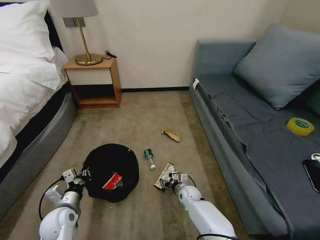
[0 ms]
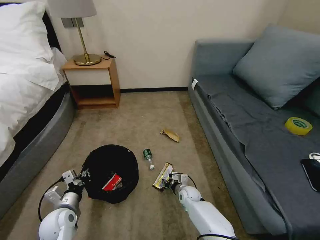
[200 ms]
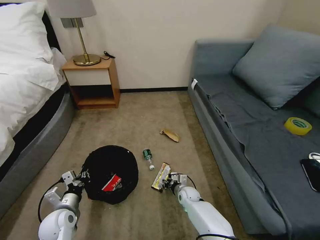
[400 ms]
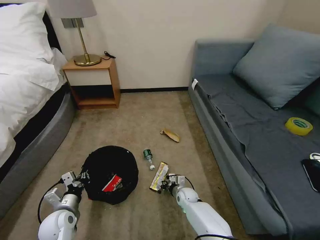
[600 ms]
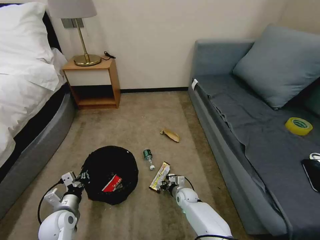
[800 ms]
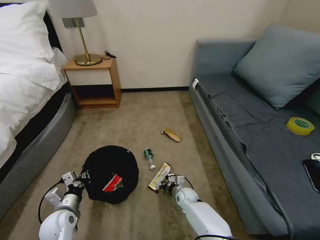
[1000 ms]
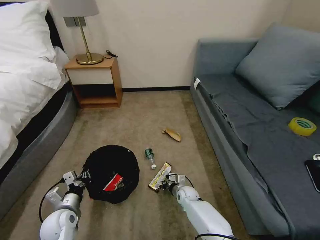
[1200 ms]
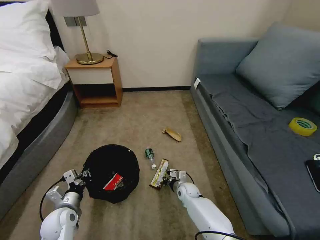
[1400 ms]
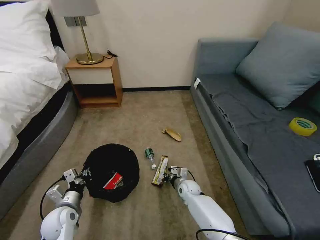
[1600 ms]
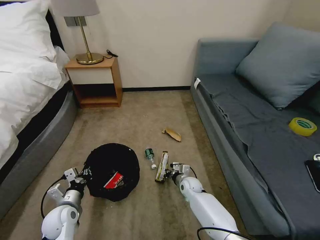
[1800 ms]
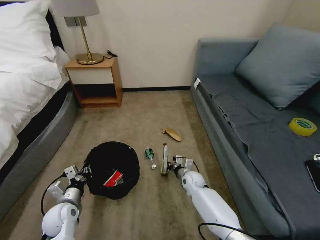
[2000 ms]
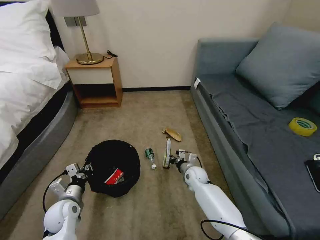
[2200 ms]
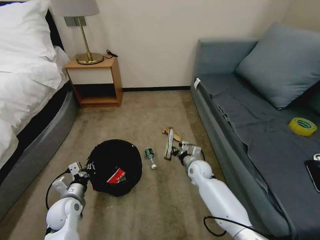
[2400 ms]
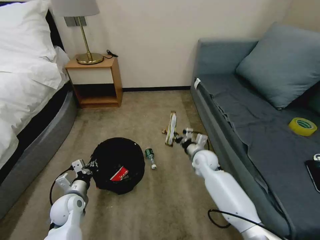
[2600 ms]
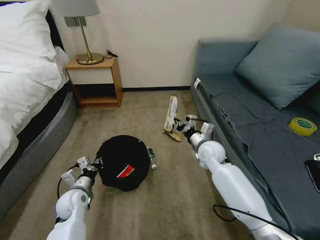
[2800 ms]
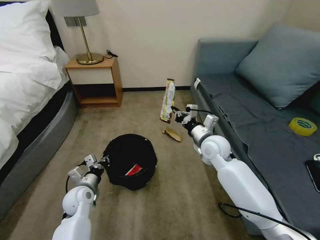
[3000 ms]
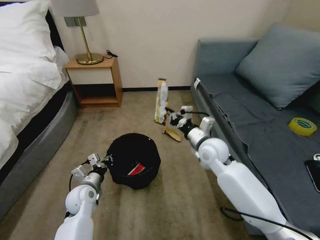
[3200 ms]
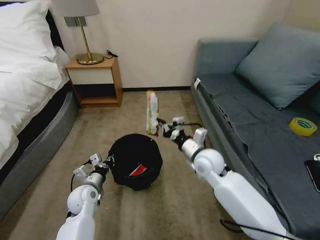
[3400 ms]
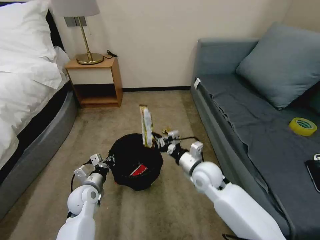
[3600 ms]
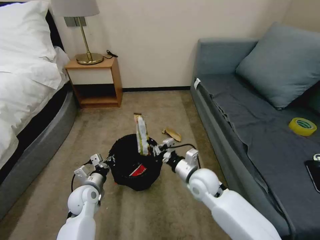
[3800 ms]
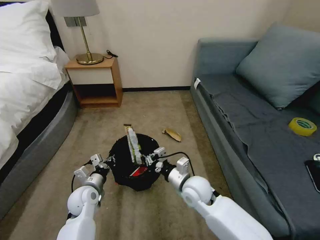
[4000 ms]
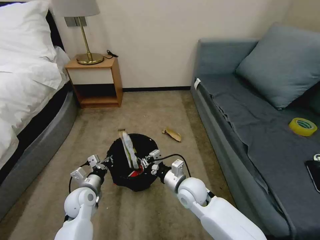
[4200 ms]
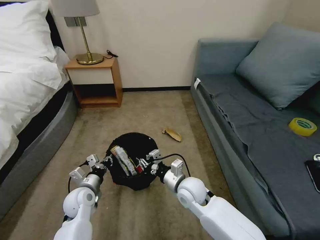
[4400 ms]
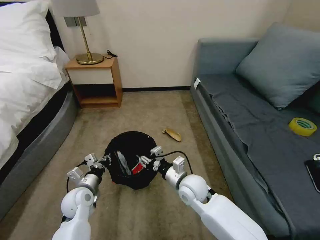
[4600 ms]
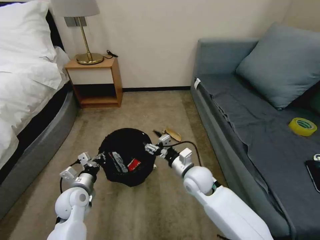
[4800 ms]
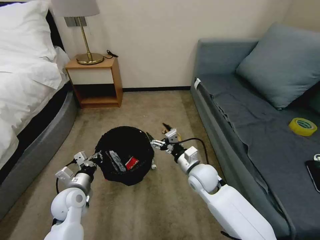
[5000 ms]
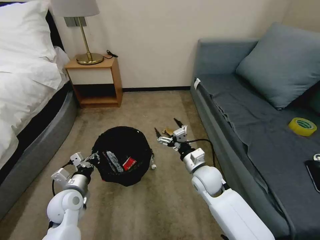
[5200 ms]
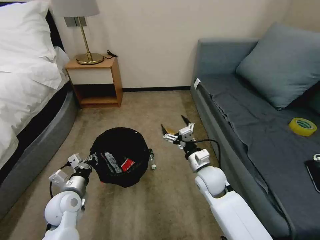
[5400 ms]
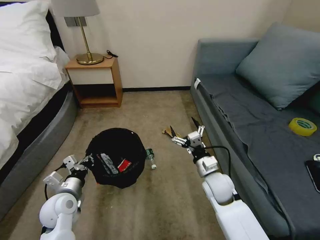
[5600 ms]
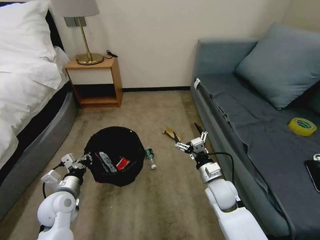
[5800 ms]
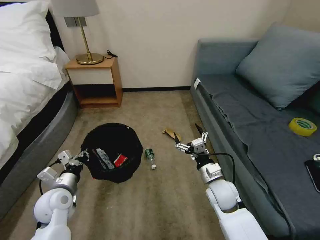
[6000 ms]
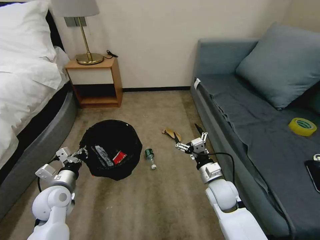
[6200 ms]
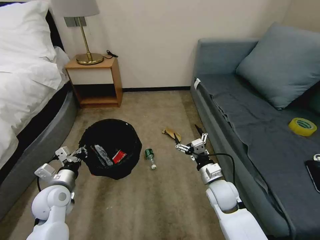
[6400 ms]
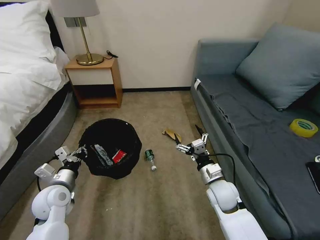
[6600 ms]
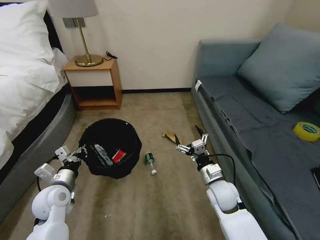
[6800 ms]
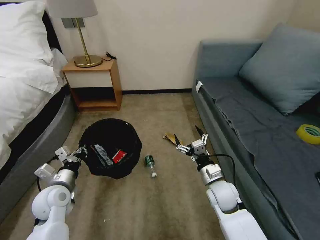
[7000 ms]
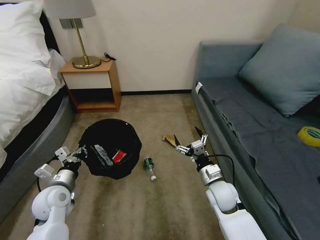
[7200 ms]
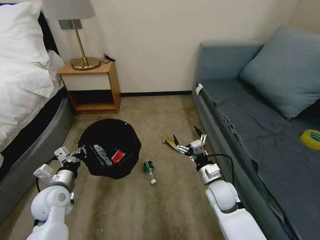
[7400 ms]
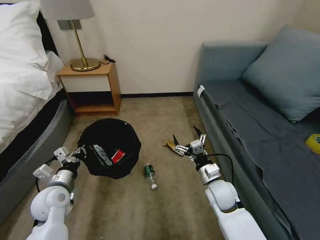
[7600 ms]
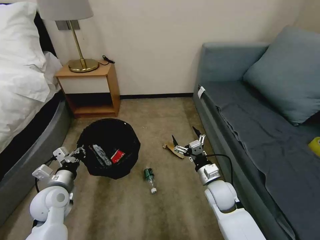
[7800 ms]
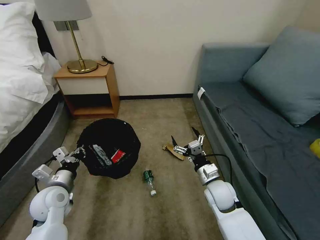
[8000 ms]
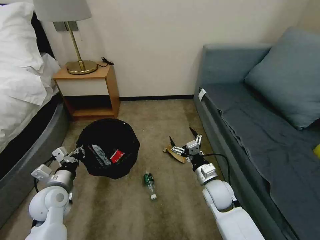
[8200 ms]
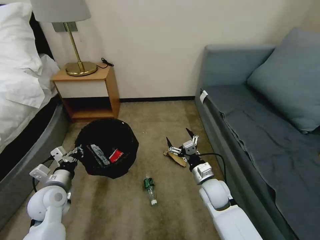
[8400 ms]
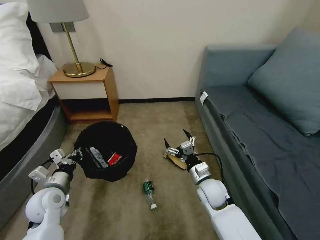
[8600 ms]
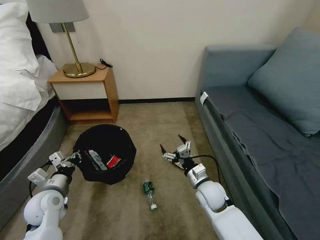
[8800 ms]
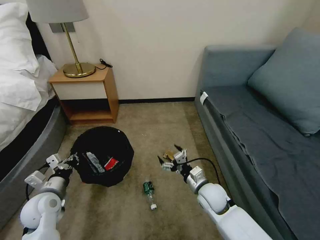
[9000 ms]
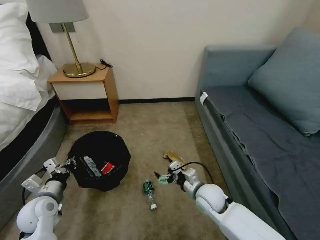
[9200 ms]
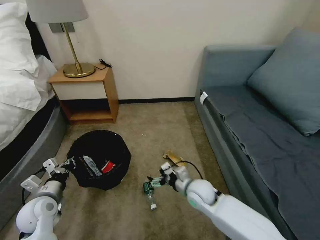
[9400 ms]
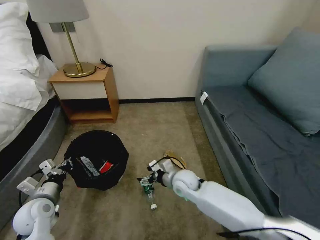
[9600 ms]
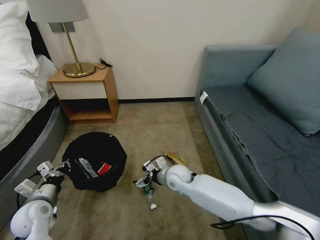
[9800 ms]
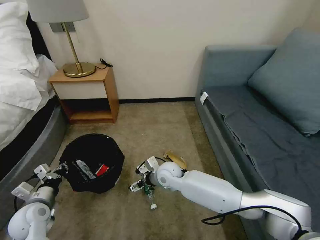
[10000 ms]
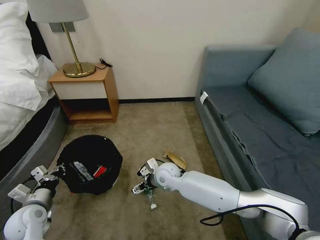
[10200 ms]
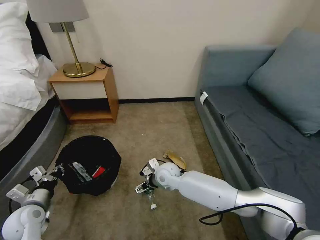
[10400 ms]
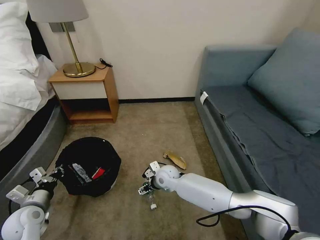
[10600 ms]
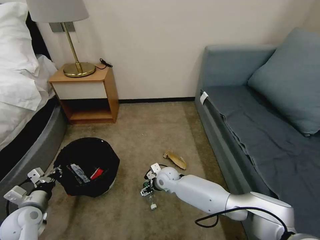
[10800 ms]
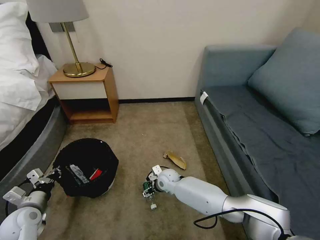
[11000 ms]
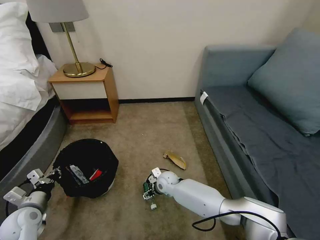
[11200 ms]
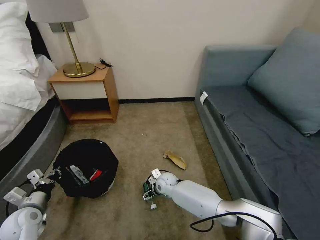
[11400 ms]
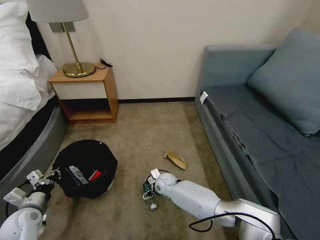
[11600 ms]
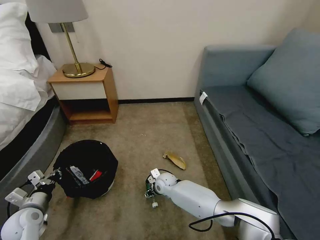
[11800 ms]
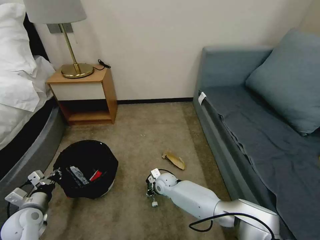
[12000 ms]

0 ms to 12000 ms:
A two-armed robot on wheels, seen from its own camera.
Task of the whole recording: Pick up the trash bin, then pick up the garbage on the floor and place it into the trash bin.
0 ms to 1600 ms: The right gripper closes.
1600 ms to 3000 ms: The left gripper is displaced forward by roughly 5 cm, while the right gripper travels upward by some 30 cm.
3000 ms to 4400 ms: The right gripper heads backward, downward and to the left, covering about 15 cm.
4400 ms to 6000 ms: The left gripper moves upward, some 5 cm; the right gripper moves to the right, some 10 cm, and opens its fingers.
9000 ms to 10400 ms: The right gripper goes about 15 cm to the left and forward; the left gripper moves to the left, roughly 5 cm.
10400 ms to 12000 ms: The right gripper shifts about 10 cm downward, and closes up.

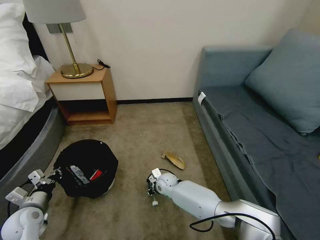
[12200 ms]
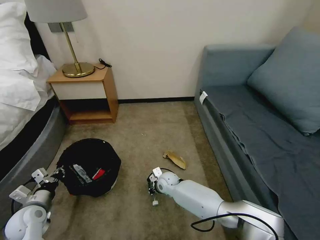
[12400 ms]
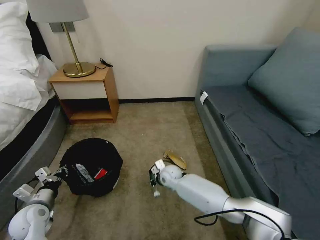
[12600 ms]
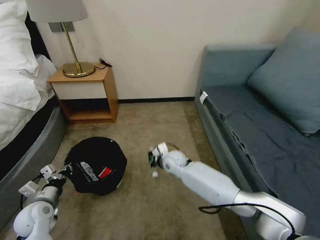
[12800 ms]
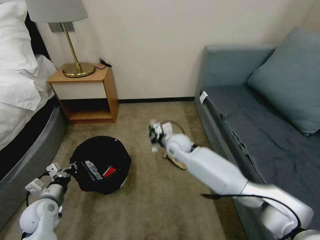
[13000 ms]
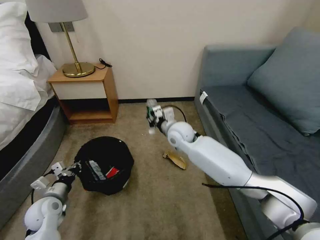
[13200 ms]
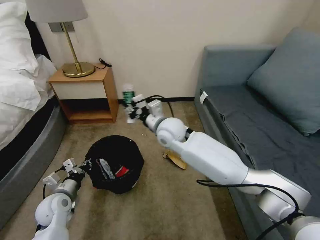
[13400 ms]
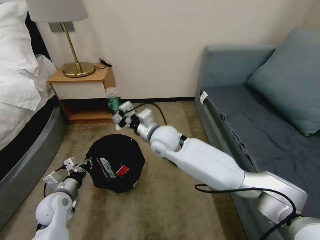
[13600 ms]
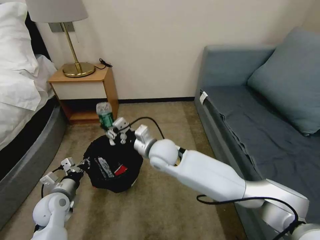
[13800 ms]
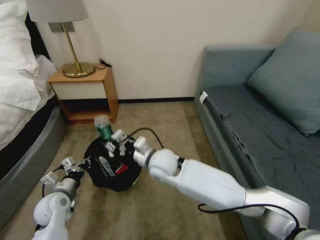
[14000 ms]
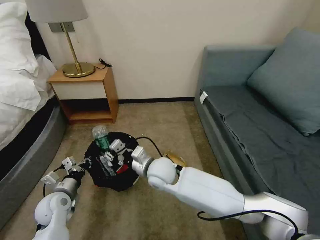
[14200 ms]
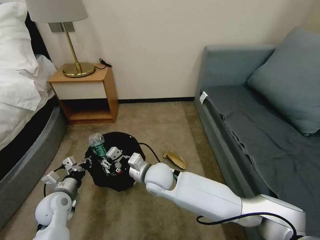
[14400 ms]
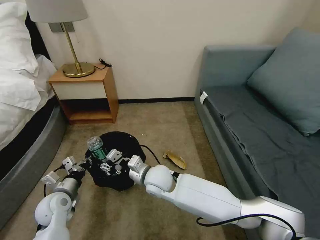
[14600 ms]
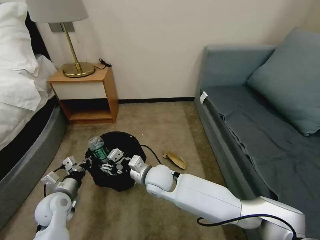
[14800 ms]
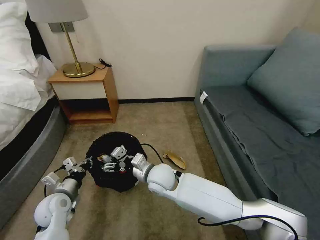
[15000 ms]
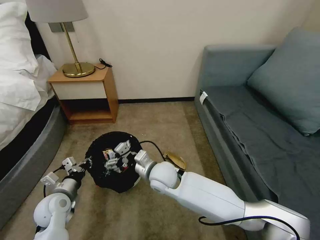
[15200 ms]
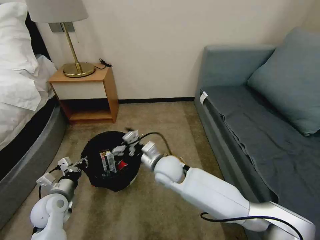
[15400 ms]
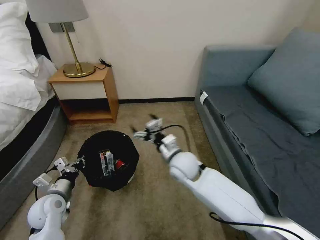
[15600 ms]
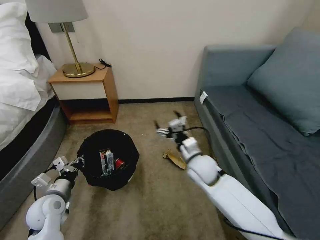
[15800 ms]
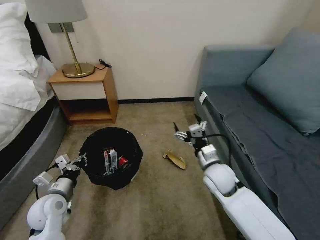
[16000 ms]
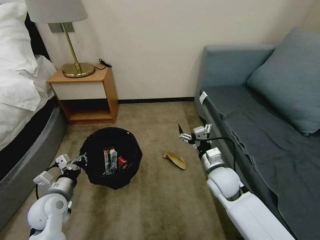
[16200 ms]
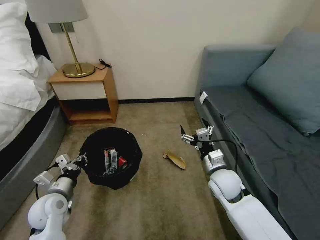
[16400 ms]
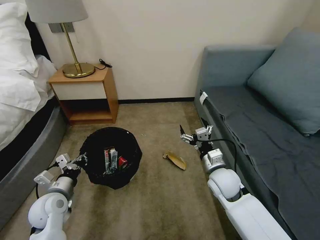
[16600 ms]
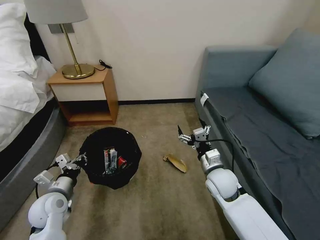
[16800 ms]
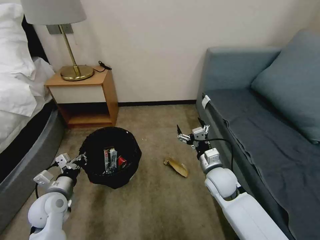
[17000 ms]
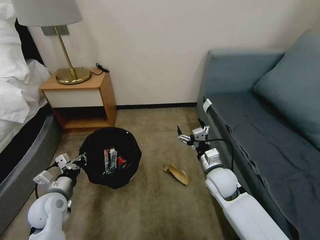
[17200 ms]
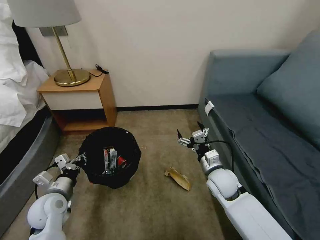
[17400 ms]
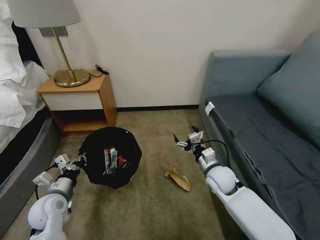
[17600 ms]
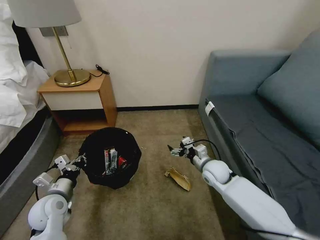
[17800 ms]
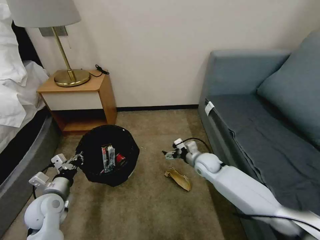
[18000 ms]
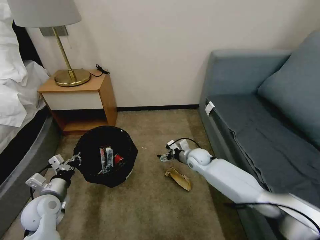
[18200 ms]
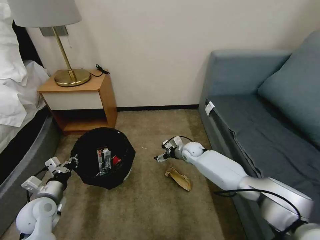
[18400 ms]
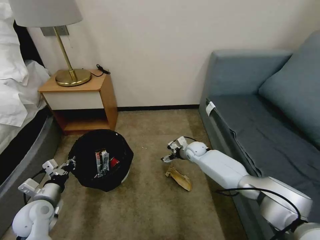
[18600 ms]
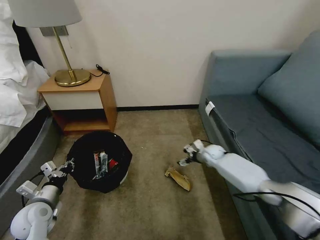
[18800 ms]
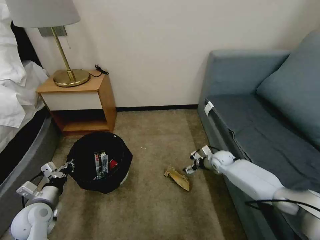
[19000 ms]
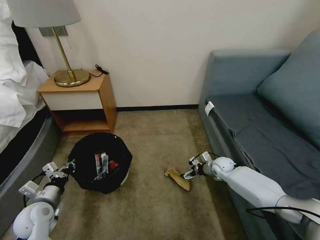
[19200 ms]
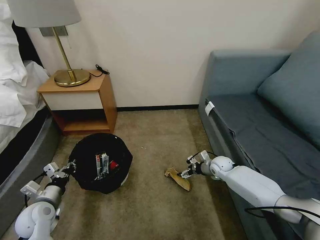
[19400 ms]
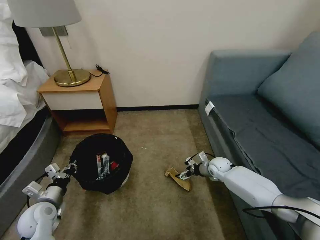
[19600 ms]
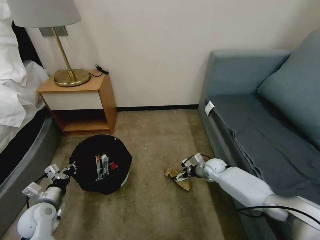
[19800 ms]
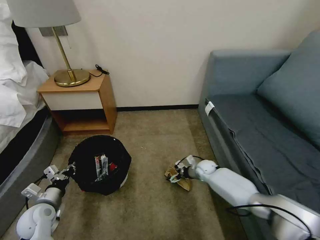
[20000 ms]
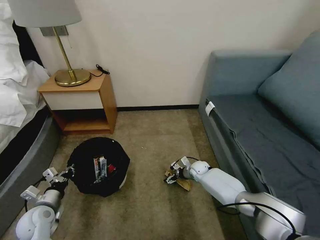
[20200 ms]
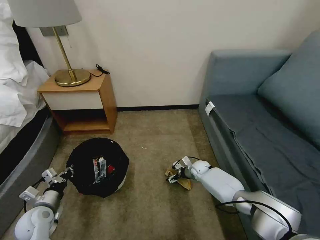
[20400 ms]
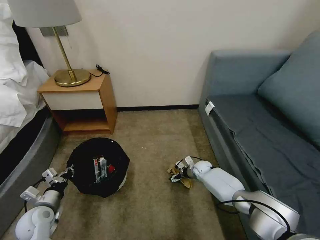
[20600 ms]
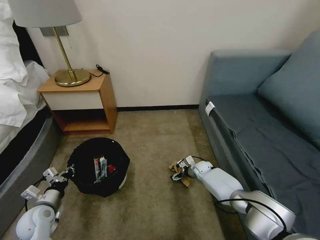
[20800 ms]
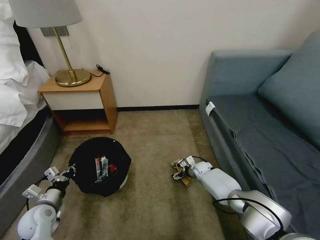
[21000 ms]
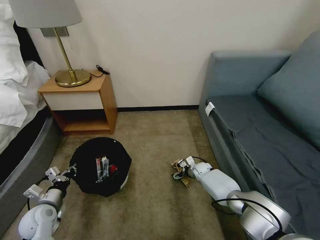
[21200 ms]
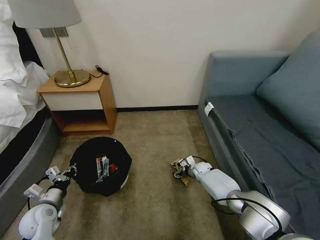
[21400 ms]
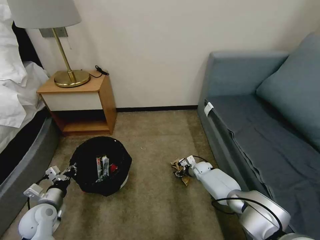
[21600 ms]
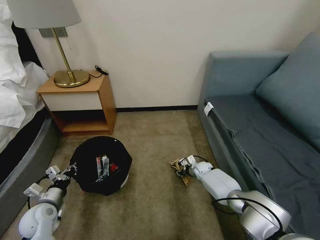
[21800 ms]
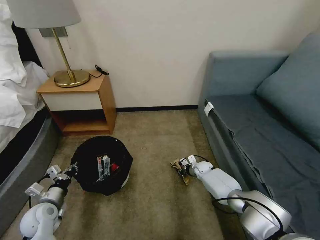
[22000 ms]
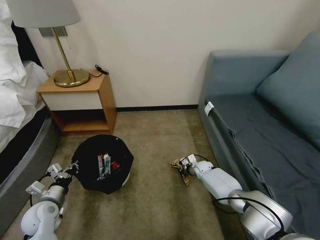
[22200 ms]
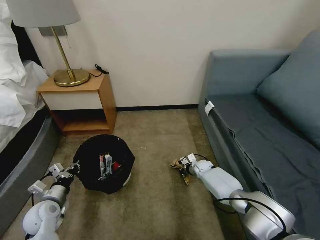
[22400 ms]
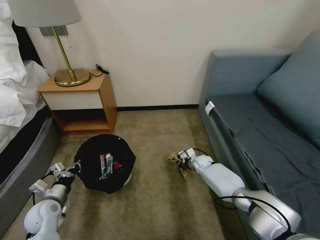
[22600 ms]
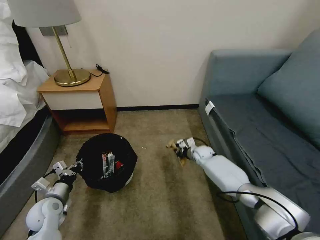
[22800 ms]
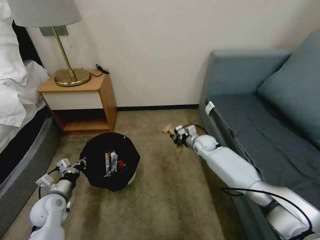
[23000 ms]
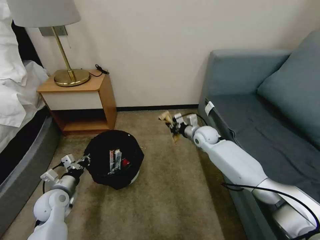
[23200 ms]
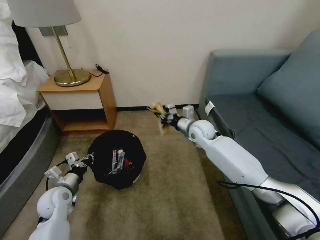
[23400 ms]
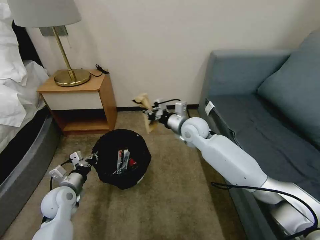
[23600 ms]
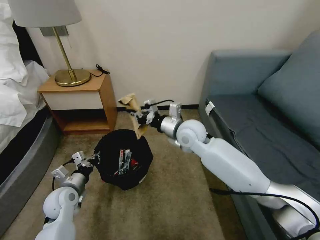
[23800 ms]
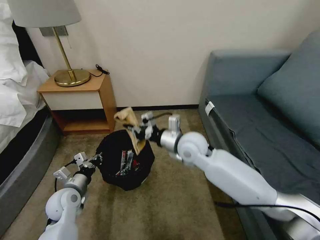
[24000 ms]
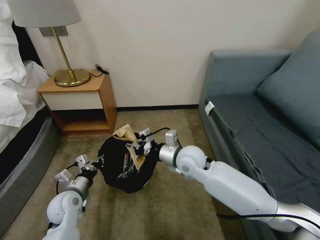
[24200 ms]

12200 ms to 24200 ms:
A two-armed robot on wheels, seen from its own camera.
Task of the whole recording: Pick up the trash bin, then pick up the garbage on the floor and place it into the trash bin.
12200 ms to 13800 ms: The left gripper moves to the right, roughly 10 cm. Meanwhile the right gripper is displaced upward by roughly 25 cm.
13800 ms to 15200 ms: The right gripper shifts approximately 5 cm downward, and opens up.
15200 ms to 16600 ms: The right gripper moves to the right, about 20 cm.
16600 ms to 18200 ms: The right gripper shifts approximately 15 cm forward and downward.
18200 ms to 19800 ms: The right gripper is displaced to the right and downward by approximately 10 cm.
19800 ms to 21200 ms: The right gripper is displaced downward and to the left by approximately 10 cm.
21200 ms to 22600 ms: The right gripper closes its fingers.
22600 ms to 24200 ms: The right gripper goes about 30 cm upward, backward and to the left; the left gripper travels to the right by about 10 cm.
